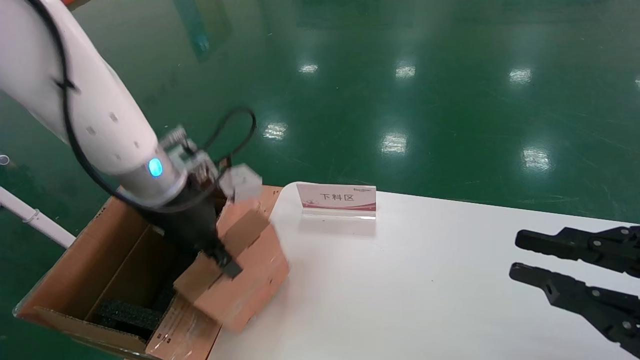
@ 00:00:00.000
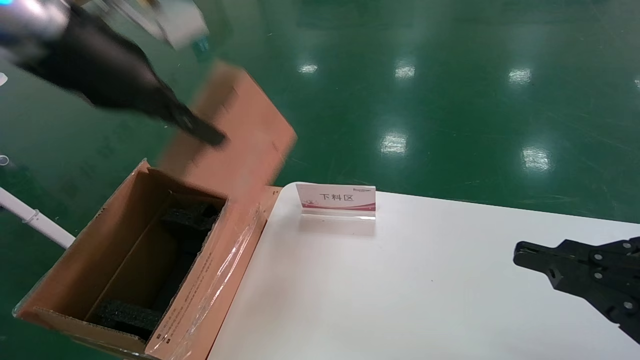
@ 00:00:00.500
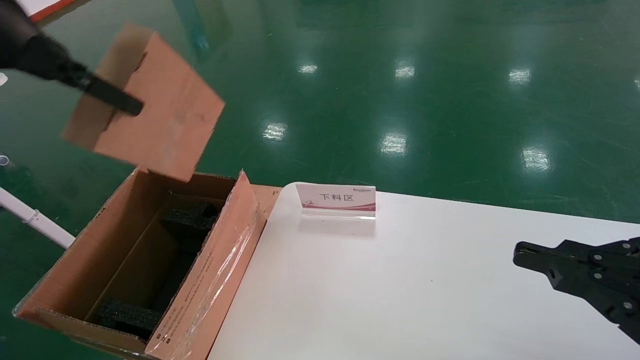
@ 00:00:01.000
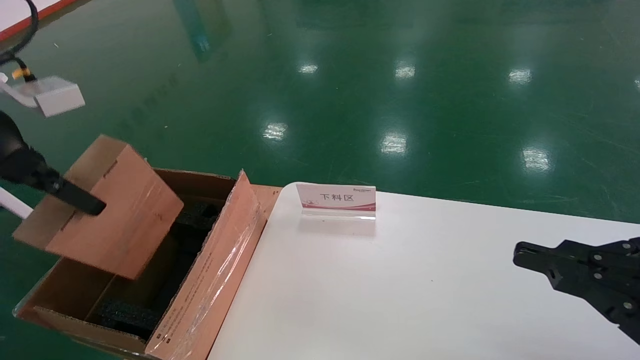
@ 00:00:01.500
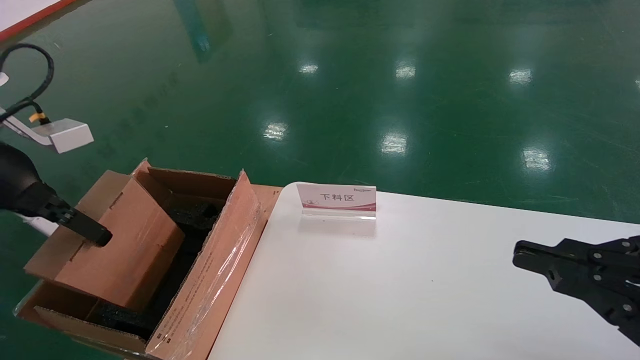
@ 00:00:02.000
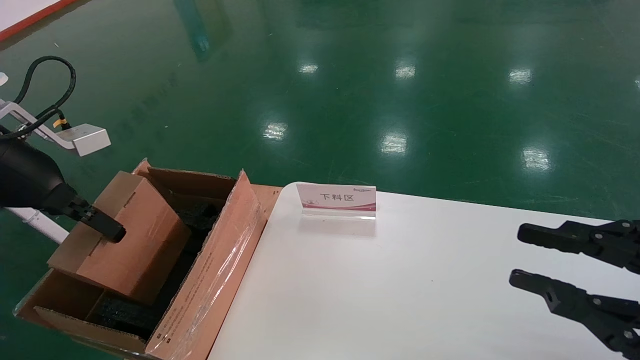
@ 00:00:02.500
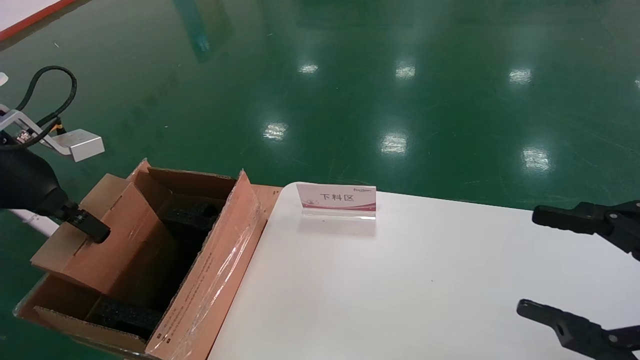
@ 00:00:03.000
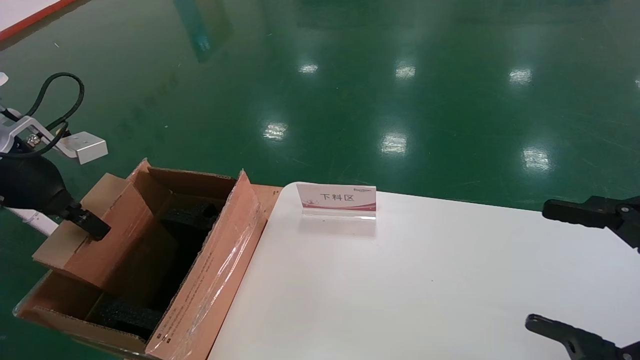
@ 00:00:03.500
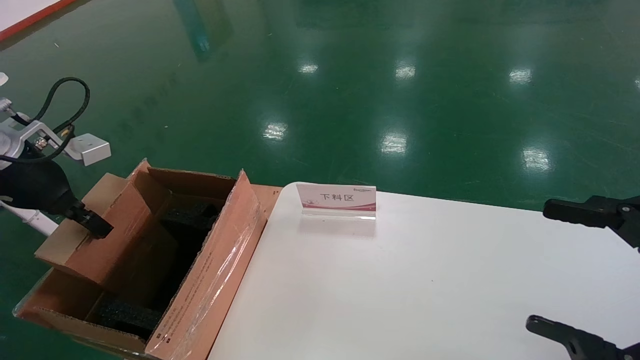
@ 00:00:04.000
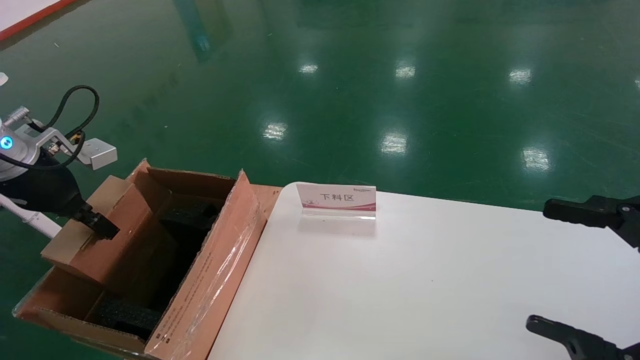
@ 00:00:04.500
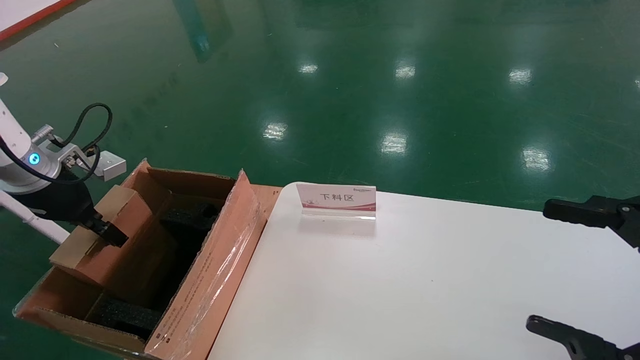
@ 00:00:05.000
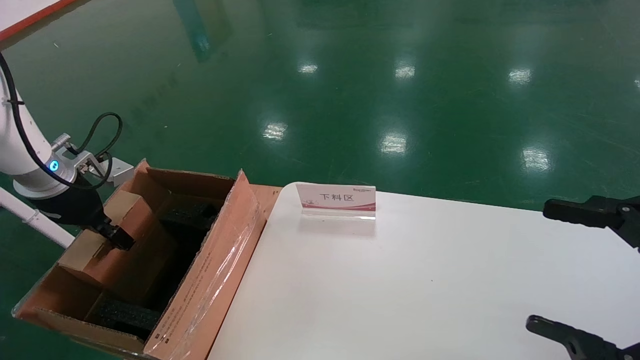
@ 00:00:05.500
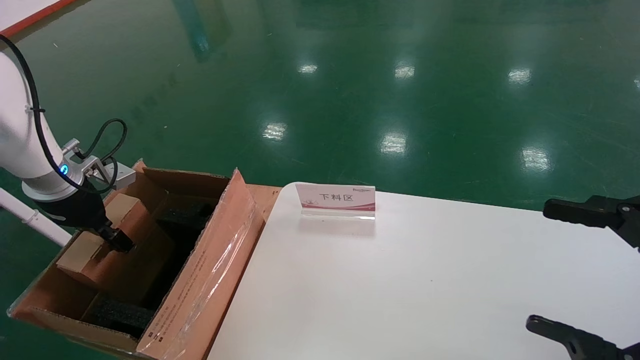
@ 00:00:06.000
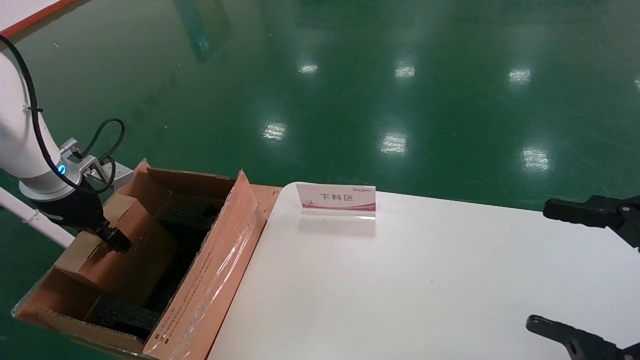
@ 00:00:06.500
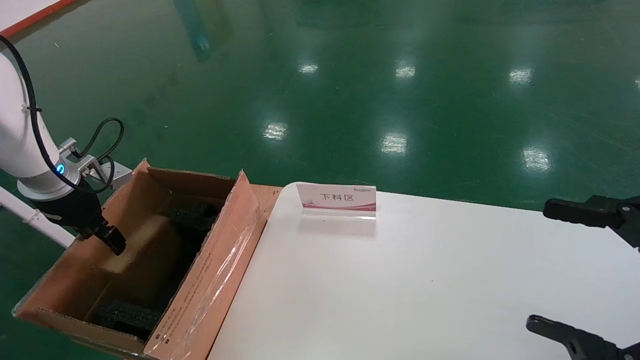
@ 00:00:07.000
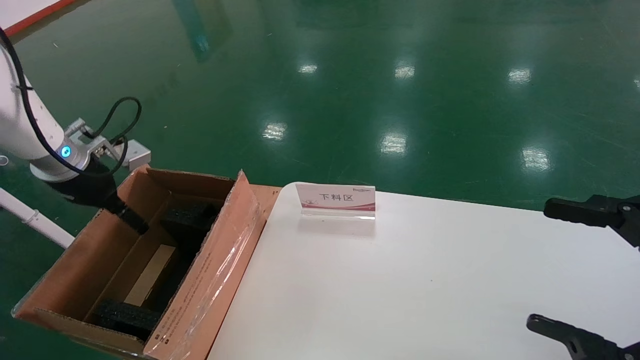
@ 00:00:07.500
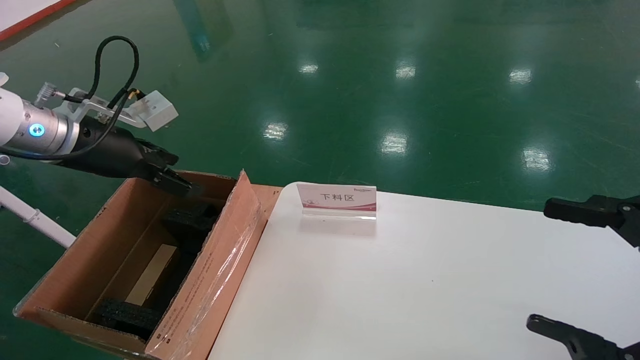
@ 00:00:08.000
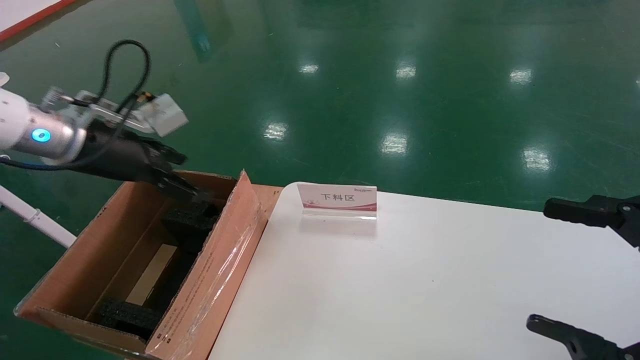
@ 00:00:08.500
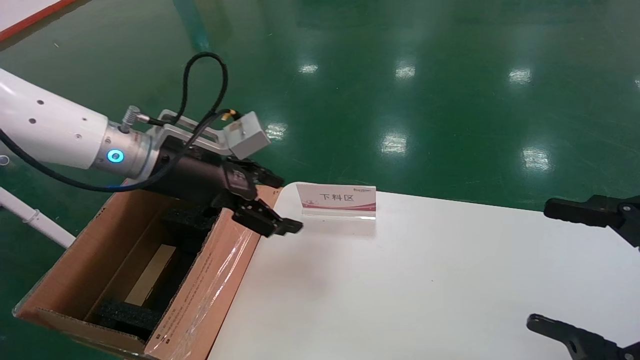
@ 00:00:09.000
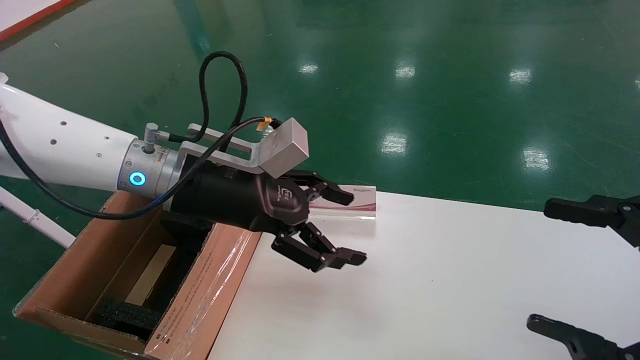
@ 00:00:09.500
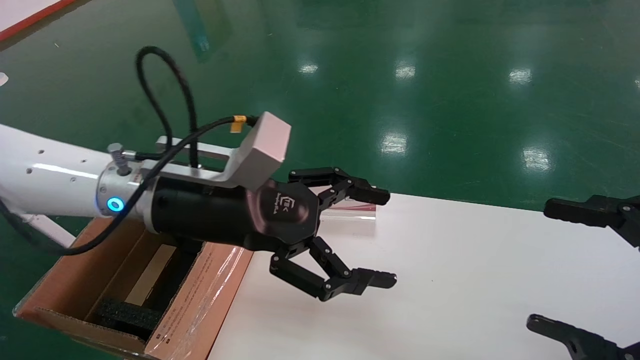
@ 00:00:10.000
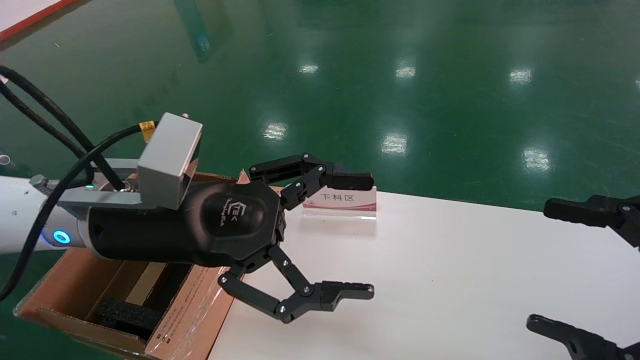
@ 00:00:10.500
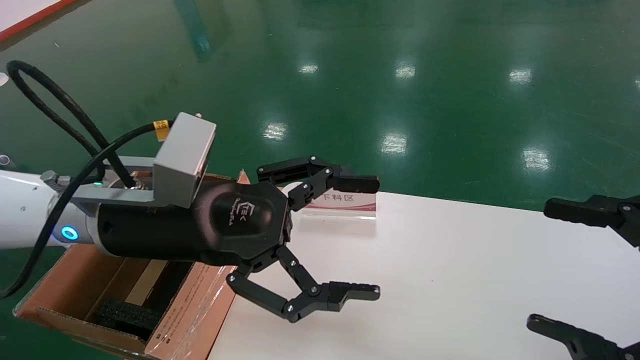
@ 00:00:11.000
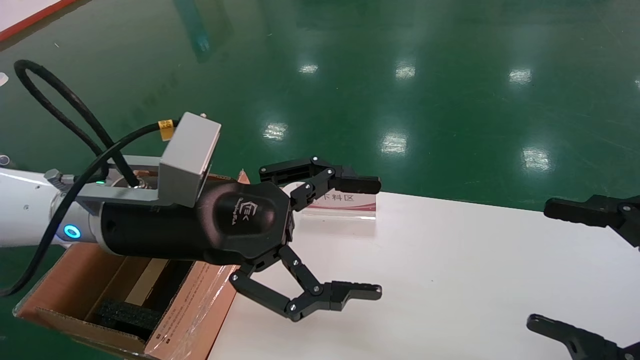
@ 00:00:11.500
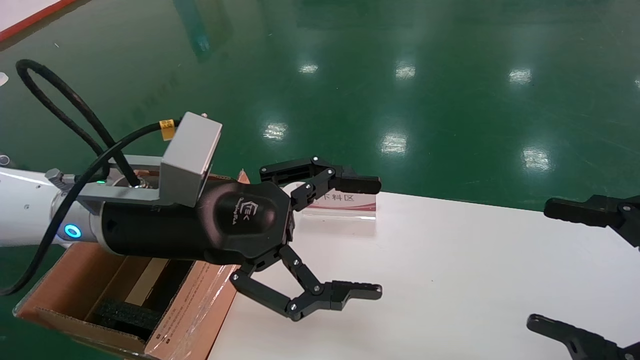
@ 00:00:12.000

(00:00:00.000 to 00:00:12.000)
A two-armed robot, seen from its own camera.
Task of the whole recording: pick up the small cardboard box and load it into the large cardboard box.
Step, 00:00:00.000 - 00:00:07.000: Place the mouse and power cord box into the case.
00:00:00.000 - 00:00:02.000: The left gripper moves to the left and backward, roughly 20 cm.
00:00:02.000 - 00:00:04.000: The right gripper opens its fingers. The left gripper heads forward, covering roughly 5 cm.
00:00:04.000 - 00:00:06.000: The left gripper moves downward and forward, about 10 cm.
00:00:06.000 - 00:00:08.000: The left gripper travels upward and to the right by approximately 10 cm, and opens.
00:00:08.000 - 00:00:10.000: The left gripper is displaced to the right by roughly 20 cm.
00:00:10.000 - 00:00:12.000: The grippers stay close to where they were, moving slightly.
